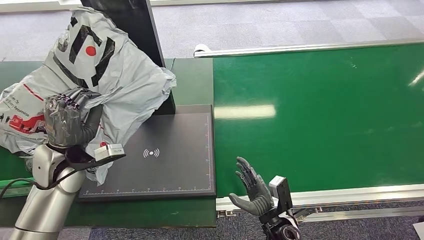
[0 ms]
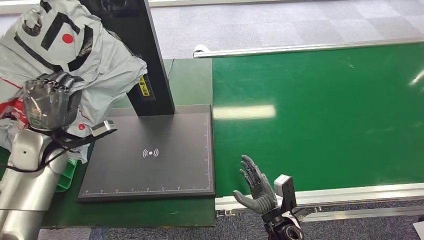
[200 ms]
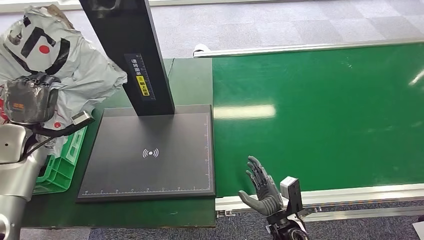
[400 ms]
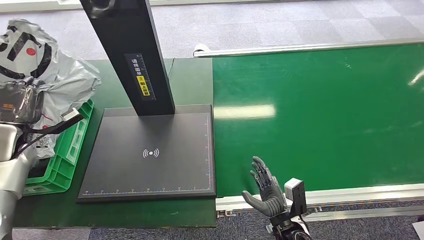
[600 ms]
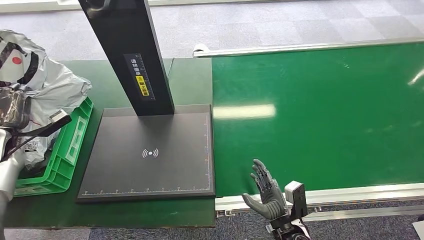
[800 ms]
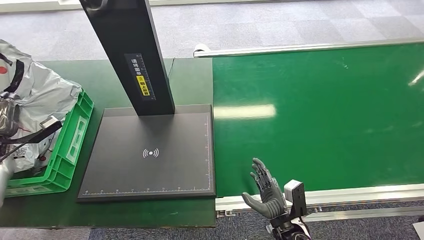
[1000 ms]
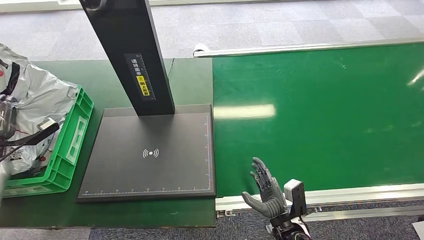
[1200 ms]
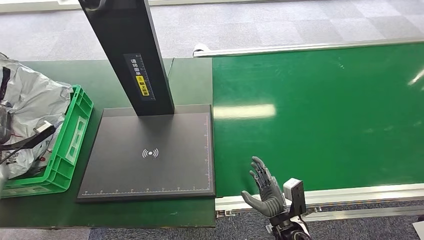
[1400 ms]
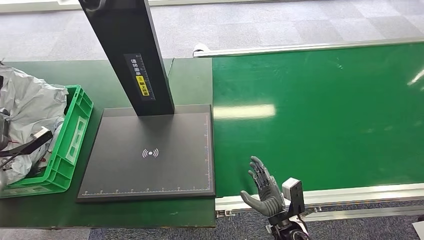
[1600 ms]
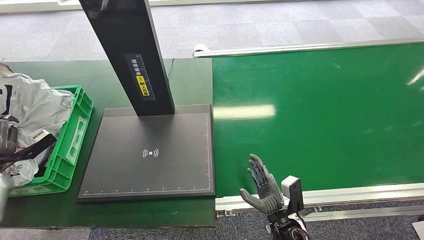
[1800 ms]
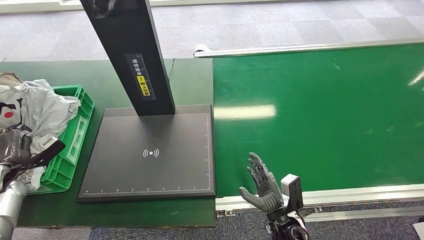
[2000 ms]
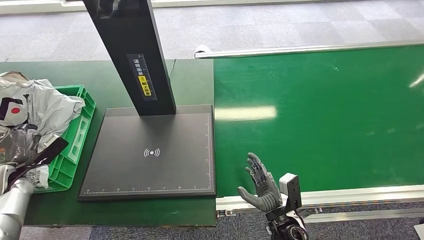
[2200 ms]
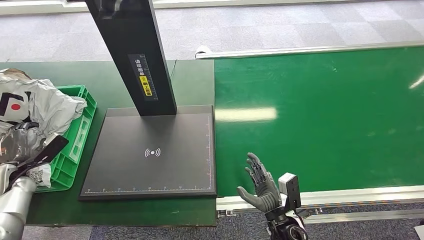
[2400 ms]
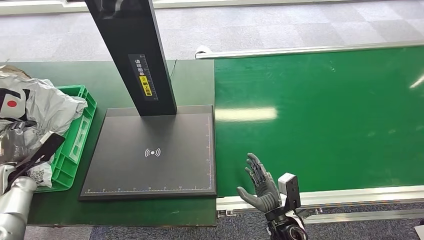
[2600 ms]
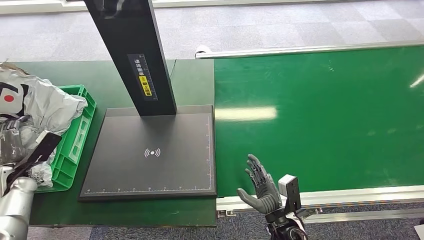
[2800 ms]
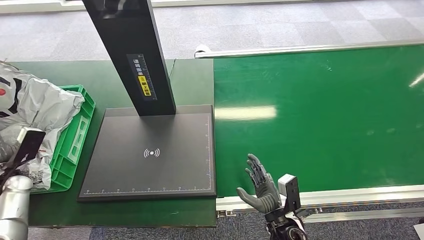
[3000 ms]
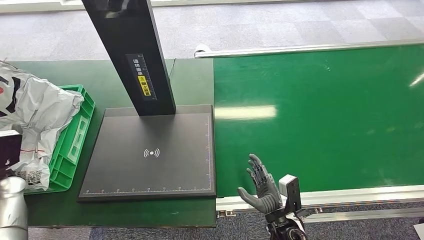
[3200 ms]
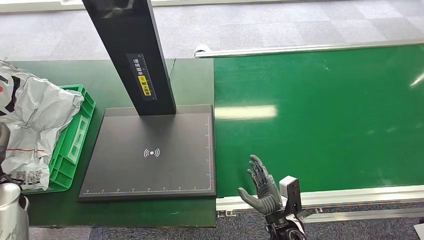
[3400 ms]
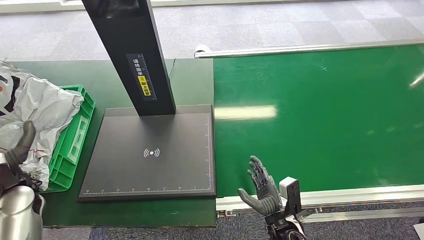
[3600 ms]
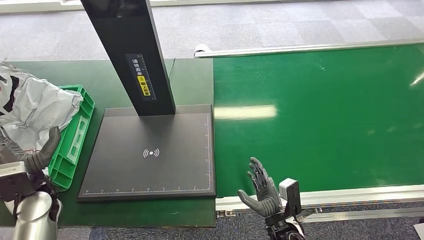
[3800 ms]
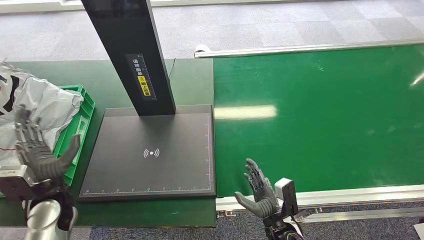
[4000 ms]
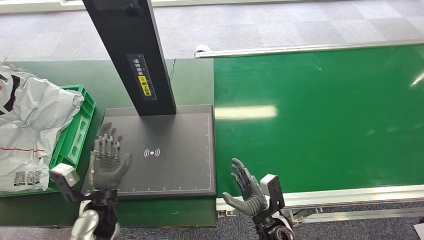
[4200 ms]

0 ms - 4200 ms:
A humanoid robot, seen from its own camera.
Step, 400 ms - 4200 ms: Place the package into the parcel locker.
1400 ms - 2800 ms: The left hand is displaced downward by approximately 10 cm.
2800 ms - 4200 ms: The left hand moves to the right, approximately 25 cm.
